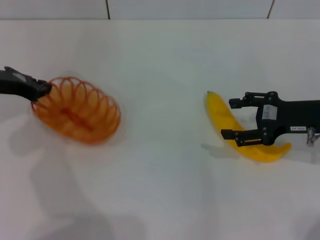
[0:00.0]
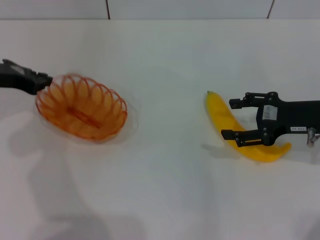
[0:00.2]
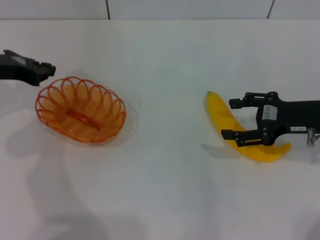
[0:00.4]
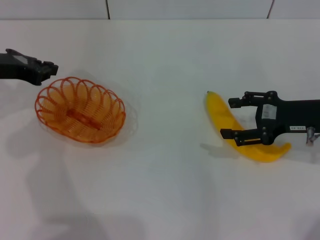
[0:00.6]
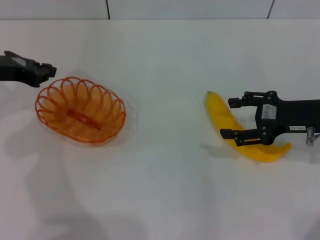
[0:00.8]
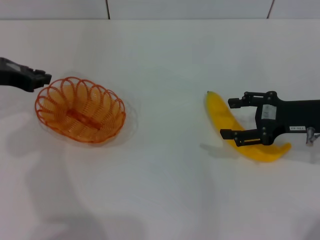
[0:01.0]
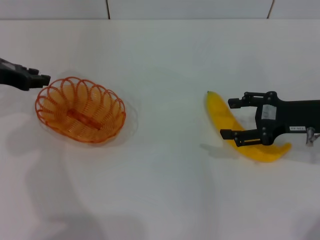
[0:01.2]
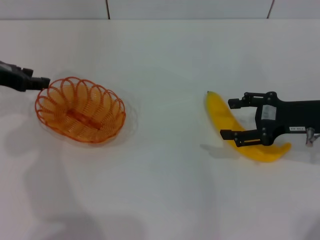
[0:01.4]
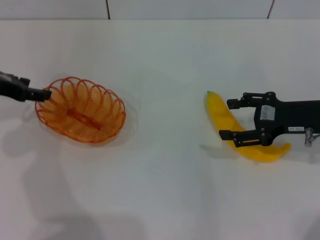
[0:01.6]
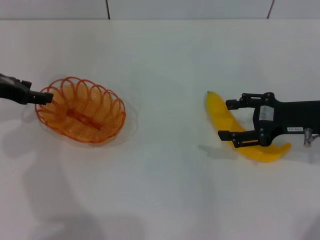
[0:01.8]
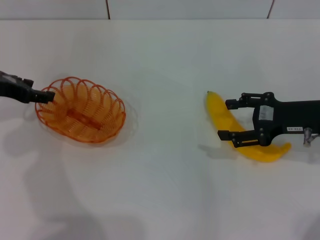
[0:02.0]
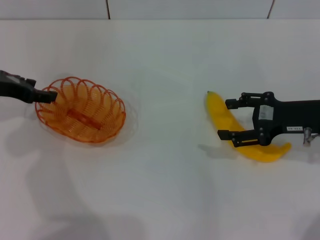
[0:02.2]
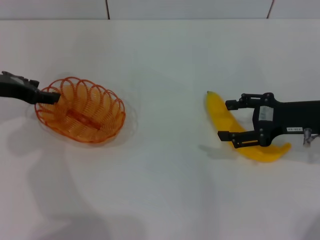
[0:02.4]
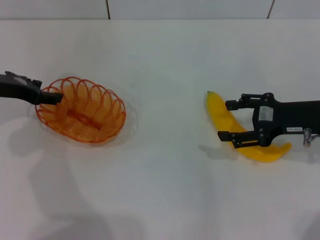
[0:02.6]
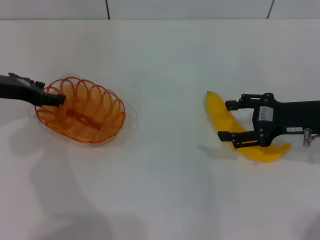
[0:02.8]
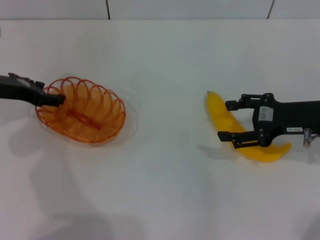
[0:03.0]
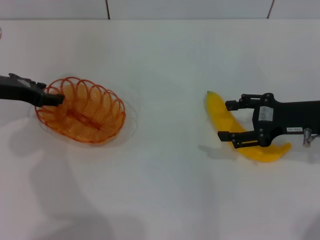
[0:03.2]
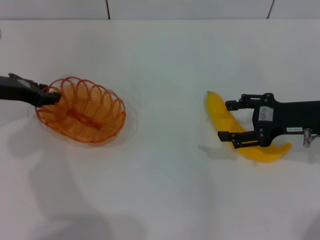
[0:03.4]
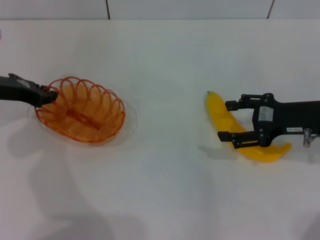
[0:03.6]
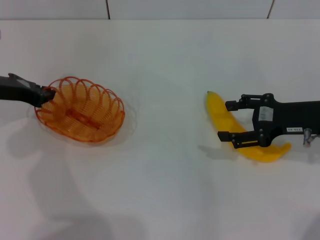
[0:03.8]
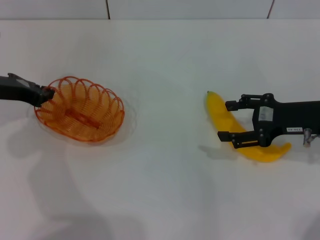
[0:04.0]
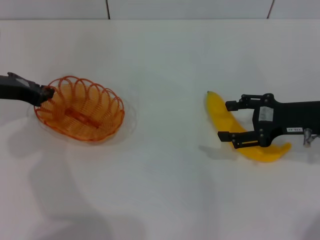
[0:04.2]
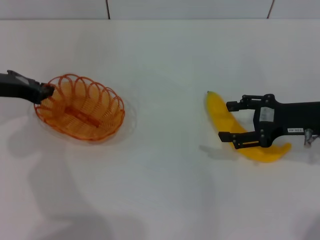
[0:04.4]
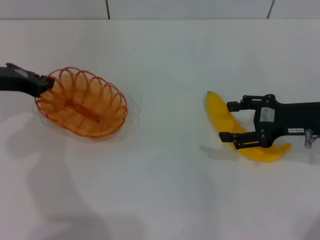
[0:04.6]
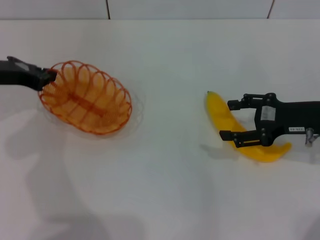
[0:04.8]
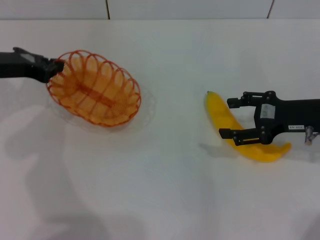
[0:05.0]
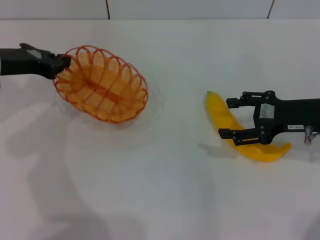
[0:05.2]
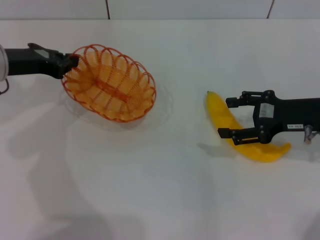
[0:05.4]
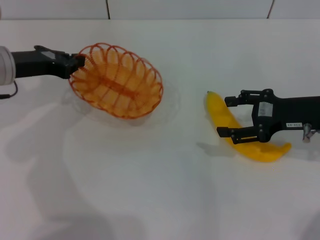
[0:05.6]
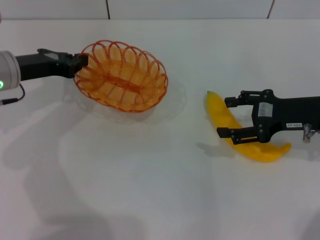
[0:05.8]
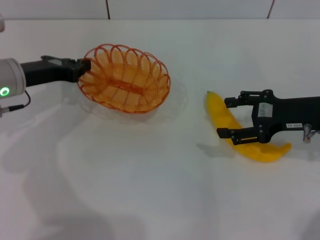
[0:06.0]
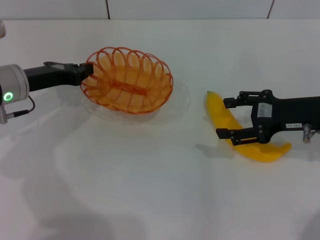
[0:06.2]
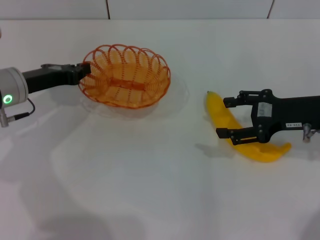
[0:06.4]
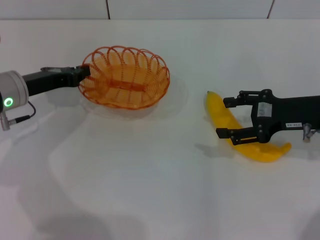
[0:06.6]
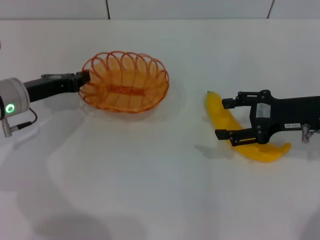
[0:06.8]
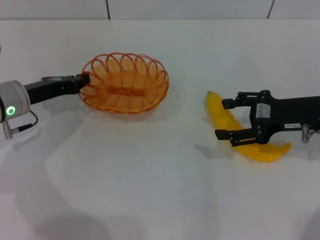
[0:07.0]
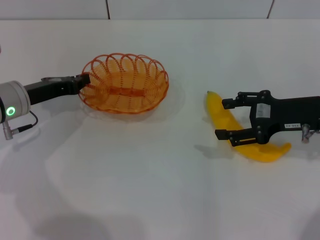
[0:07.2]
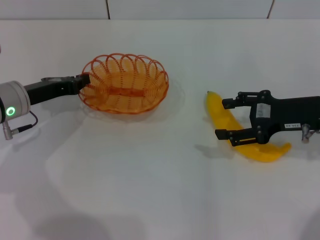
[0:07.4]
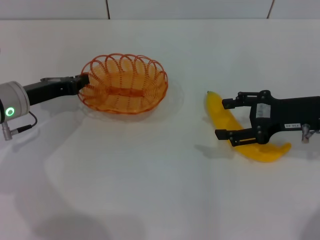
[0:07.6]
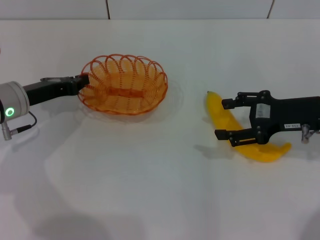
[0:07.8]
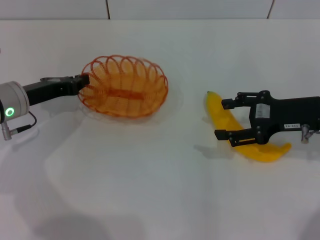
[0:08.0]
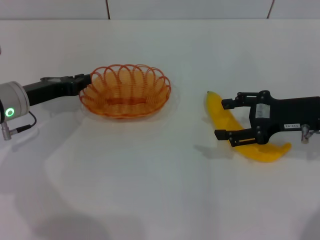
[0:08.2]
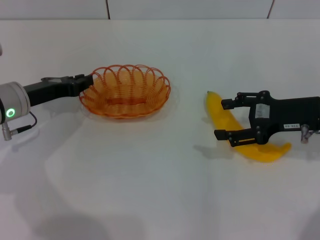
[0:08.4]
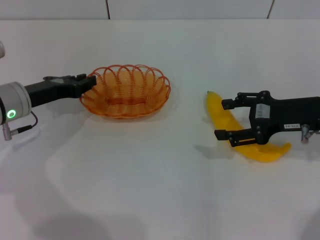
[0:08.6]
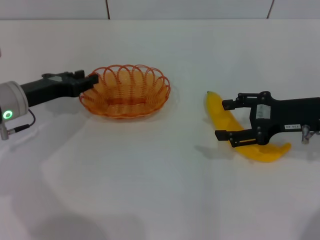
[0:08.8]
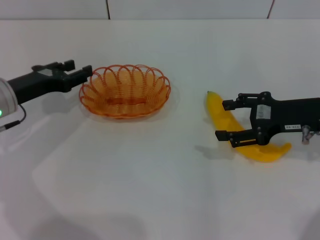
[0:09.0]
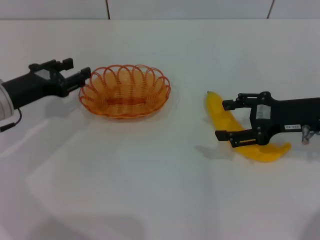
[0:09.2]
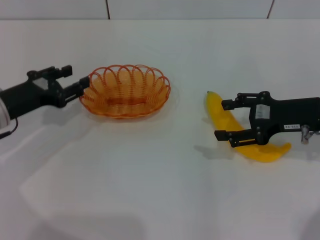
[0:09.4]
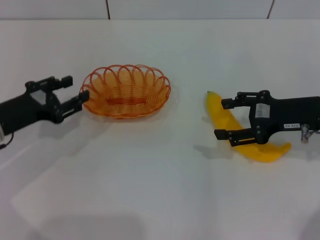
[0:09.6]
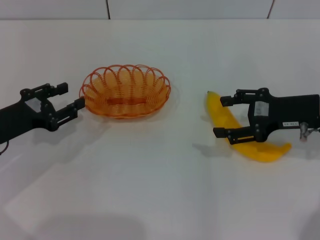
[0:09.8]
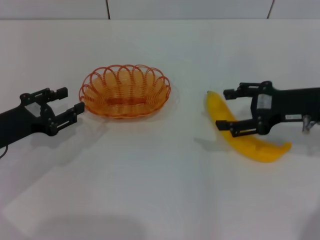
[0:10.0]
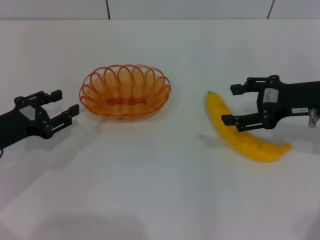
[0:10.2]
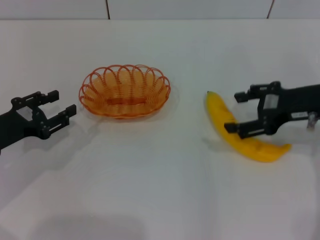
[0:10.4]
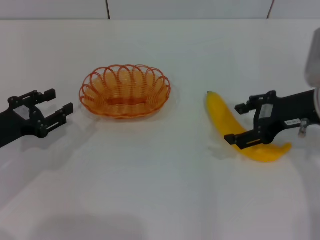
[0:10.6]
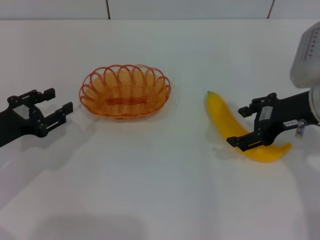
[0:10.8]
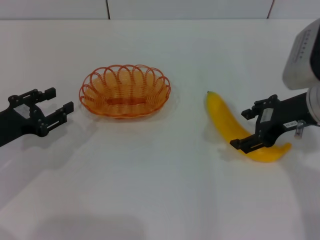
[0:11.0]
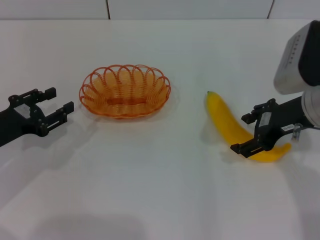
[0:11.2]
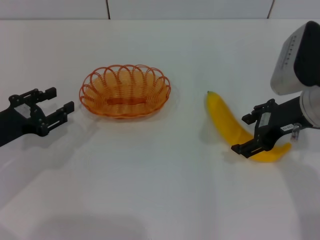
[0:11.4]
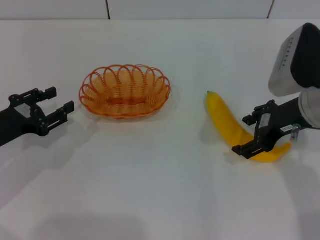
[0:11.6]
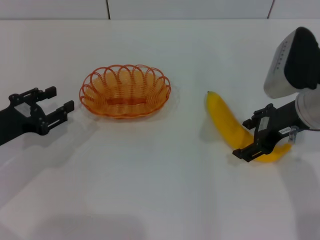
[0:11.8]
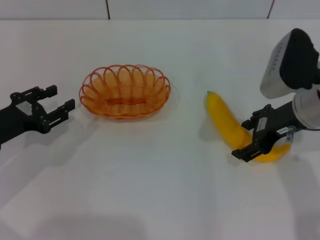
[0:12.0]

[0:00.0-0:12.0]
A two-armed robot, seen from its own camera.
Step, 0:00.0 to 0:04.8: Pick up the basket with the left gripper.
Step, 0:05.2 to 0:08.6: Place the basket in the center of view with the left gripper.
0:00.0 to 0:01.6: The left gripper closes, then reopens.
0:01.6 to 0:03.0: The grippers stay close to where they were, moving slightly.
0:03.0 to 0:04.4: The left gripper closes.
0:06.0 to 0:07.6: The grippers stay close to where they were, moving slightly.
0:07.6 to 0:09.0: The left gripper opens.
0:09.0 to 0:10.4: The left gripper is displaced backward by roughly 5 cm.

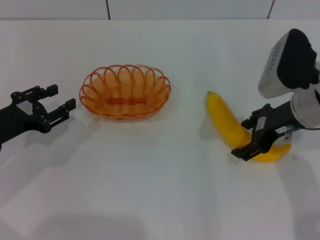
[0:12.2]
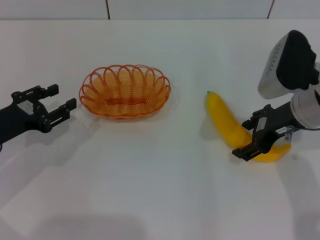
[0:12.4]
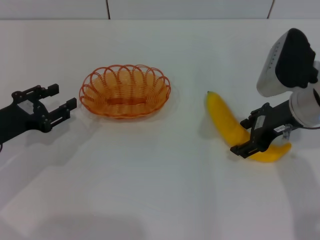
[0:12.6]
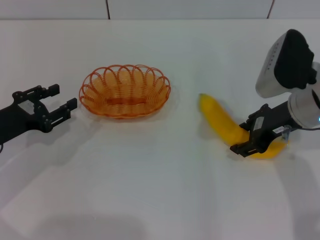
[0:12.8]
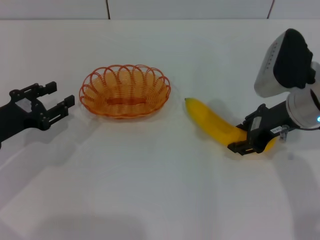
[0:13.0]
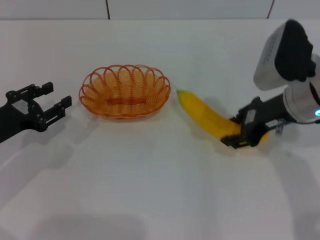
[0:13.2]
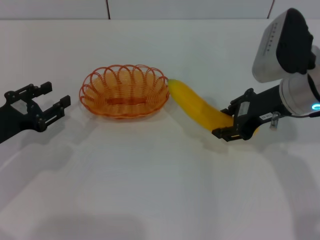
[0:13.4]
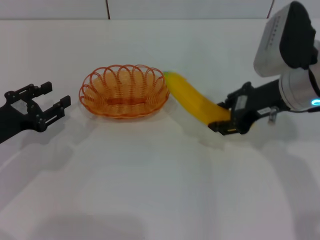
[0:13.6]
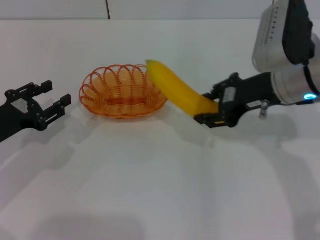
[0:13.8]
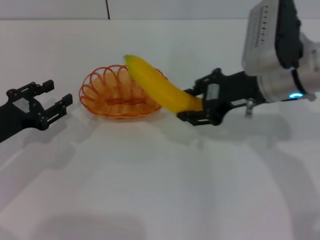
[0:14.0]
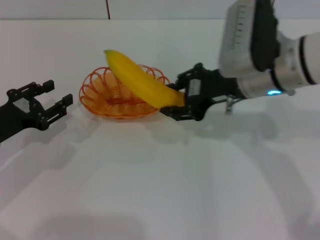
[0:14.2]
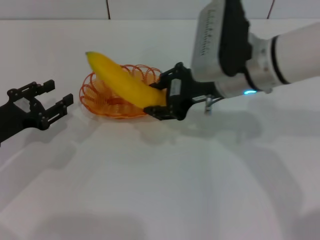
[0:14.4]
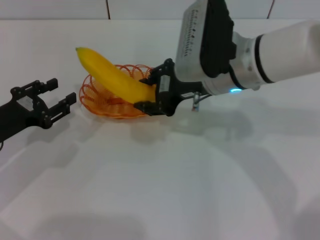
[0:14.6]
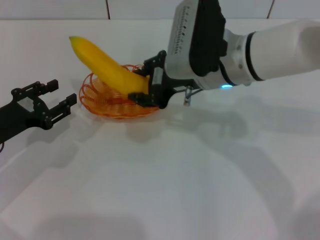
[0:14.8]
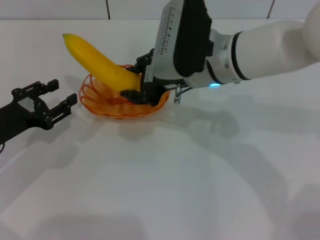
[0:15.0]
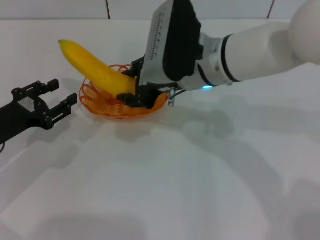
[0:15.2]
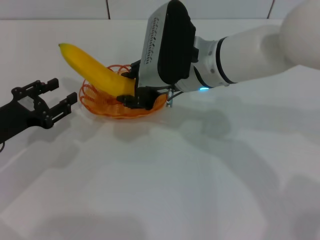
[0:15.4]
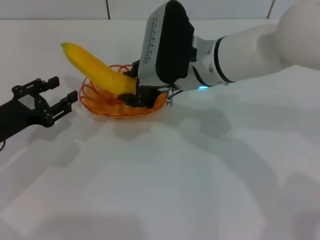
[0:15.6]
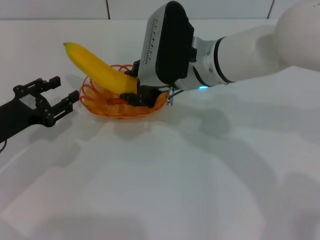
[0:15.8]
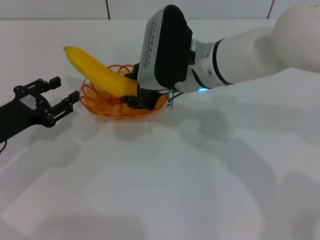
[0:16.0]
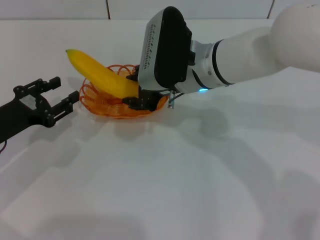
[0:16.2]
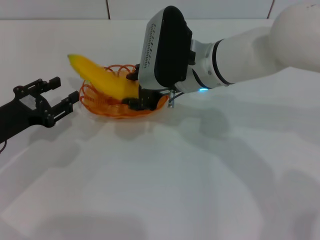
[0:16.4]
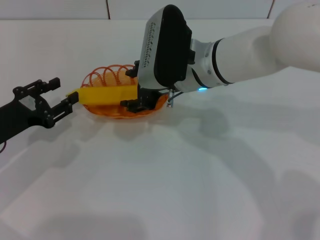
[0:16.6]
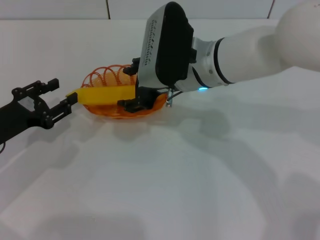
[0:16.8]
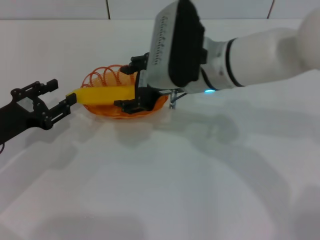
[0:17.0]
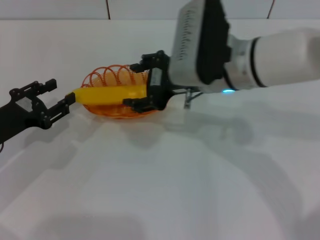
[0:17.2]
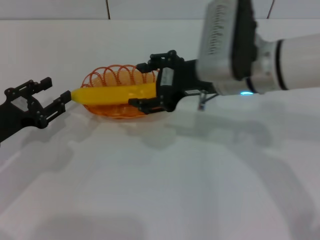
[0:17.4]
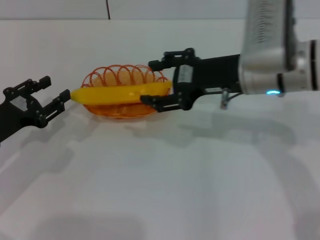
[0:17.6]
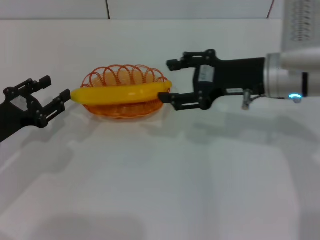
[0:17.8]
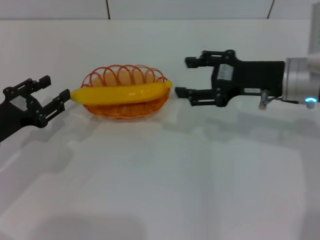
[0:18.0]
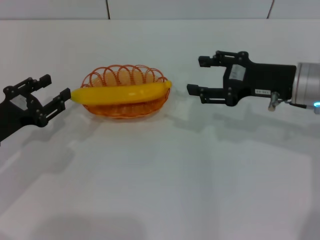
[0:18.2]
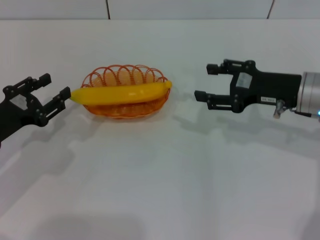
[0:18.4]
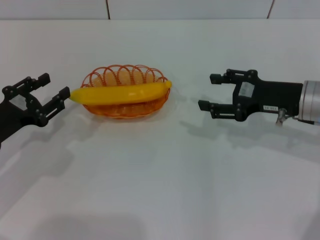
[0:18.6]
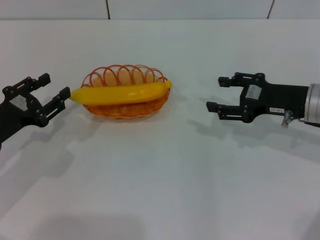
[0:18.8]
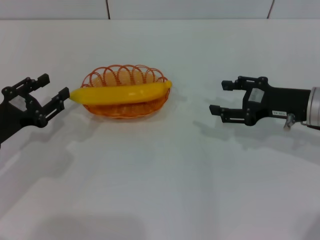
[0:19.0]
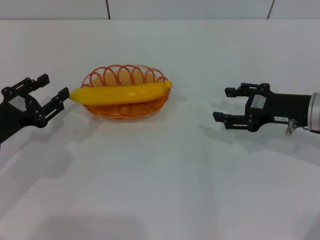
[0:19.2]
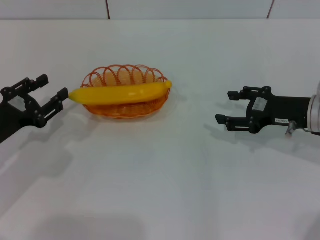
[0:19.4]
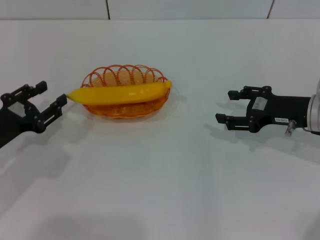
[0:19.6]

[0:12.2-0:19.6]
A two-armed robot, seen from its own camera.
Step, 0:13.6 to 0:17.0: Place the banana into the basket with the right gripper.
0:12.2 to 0:13.6: The right gripper closes.
0:13.6 to 0:15.2: The right gripper travels to the left by some 15 cm.
0:15.2 to 0:16.6: There are only small adjustments of the grippers.
0:16.6 to 0:18.2: The right gripper is displaced to the right by approximately 15 cm, and opens.
0:18.2 to 0:19.6: The right gripper ends up approximately 5 cm from where it was.
